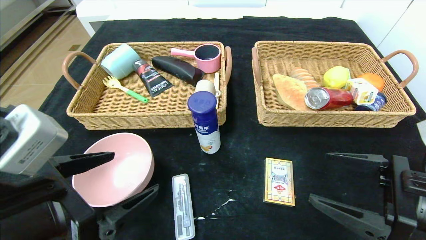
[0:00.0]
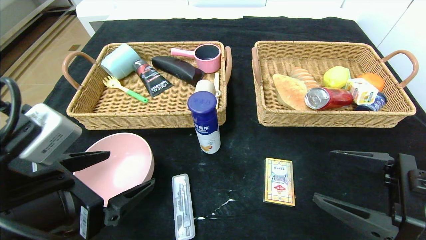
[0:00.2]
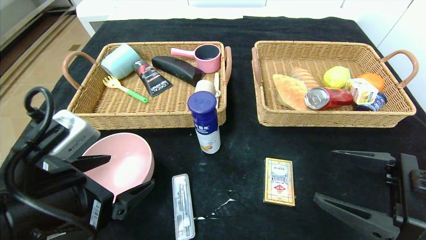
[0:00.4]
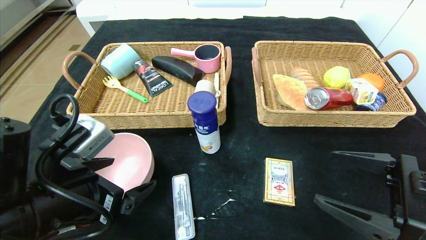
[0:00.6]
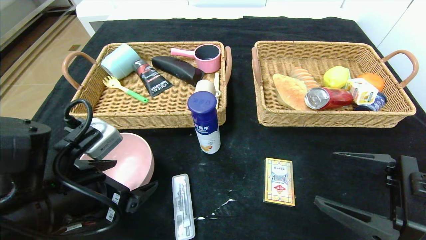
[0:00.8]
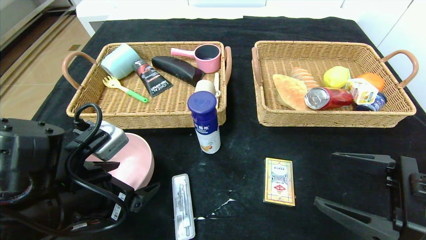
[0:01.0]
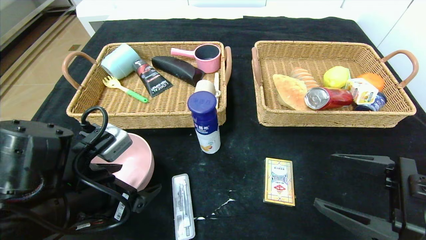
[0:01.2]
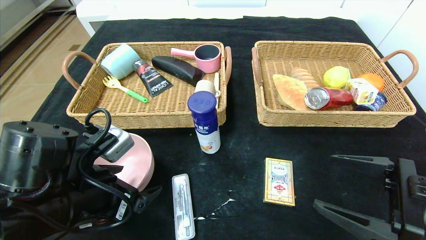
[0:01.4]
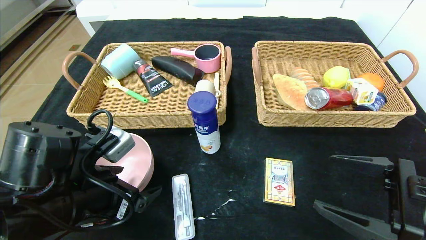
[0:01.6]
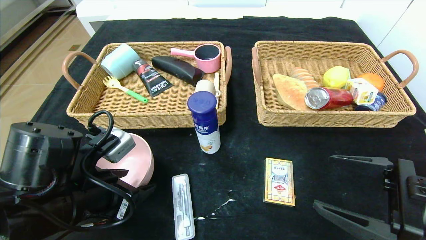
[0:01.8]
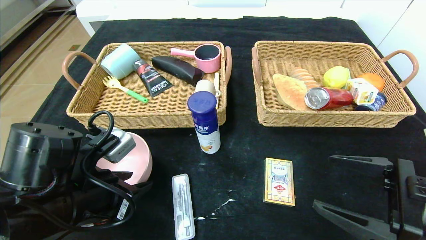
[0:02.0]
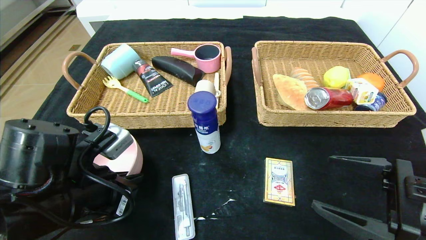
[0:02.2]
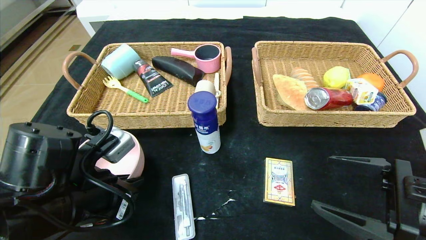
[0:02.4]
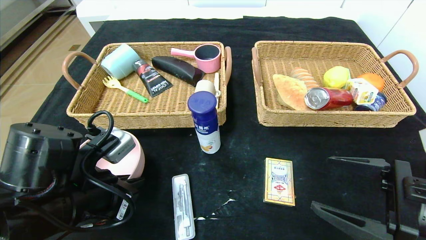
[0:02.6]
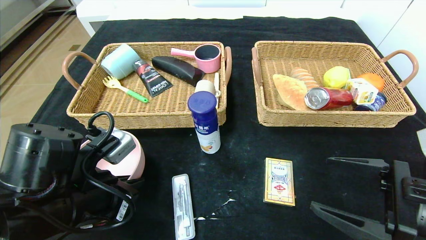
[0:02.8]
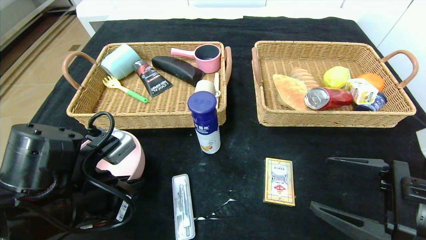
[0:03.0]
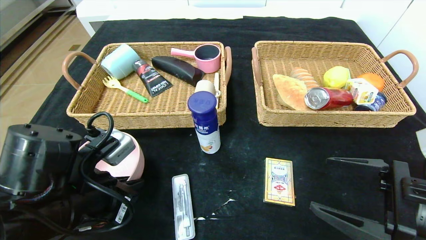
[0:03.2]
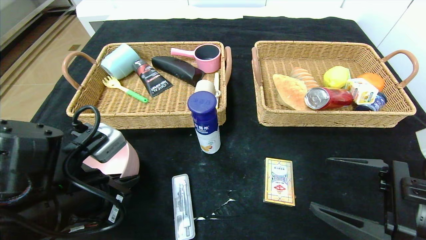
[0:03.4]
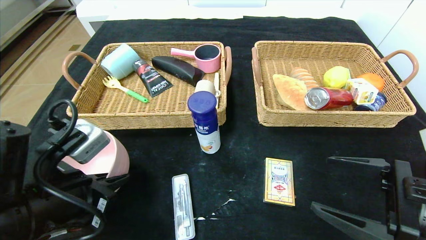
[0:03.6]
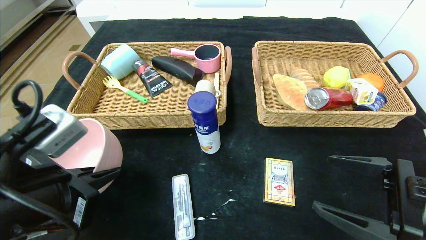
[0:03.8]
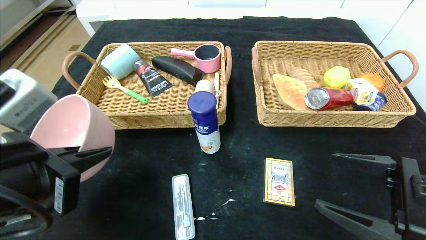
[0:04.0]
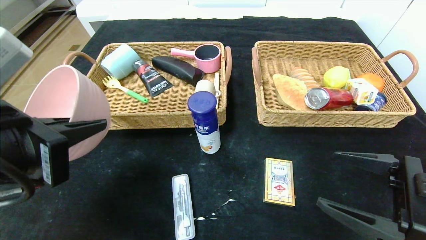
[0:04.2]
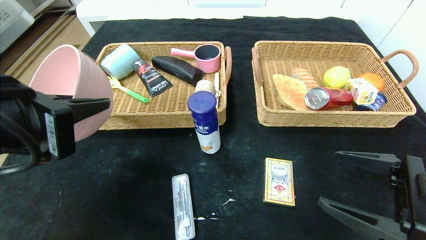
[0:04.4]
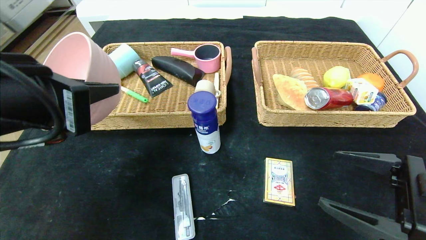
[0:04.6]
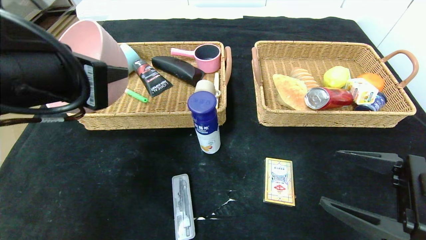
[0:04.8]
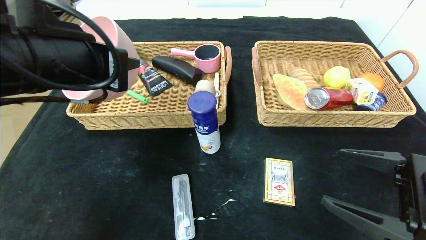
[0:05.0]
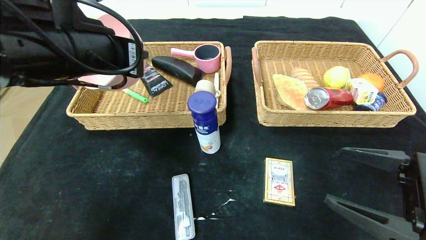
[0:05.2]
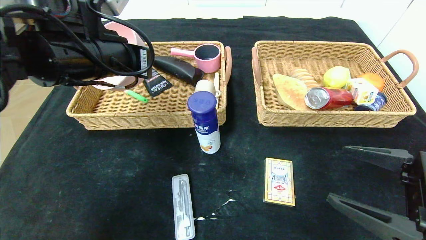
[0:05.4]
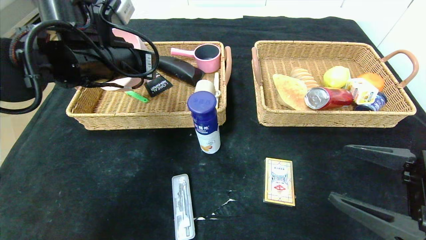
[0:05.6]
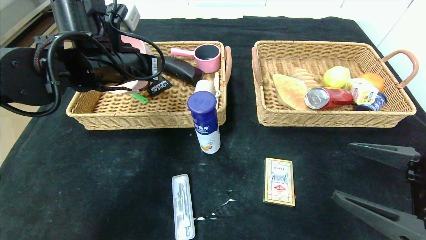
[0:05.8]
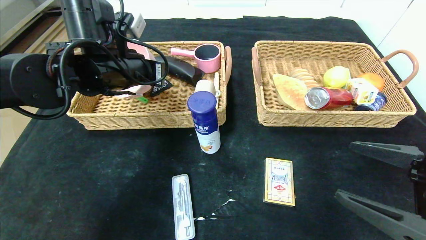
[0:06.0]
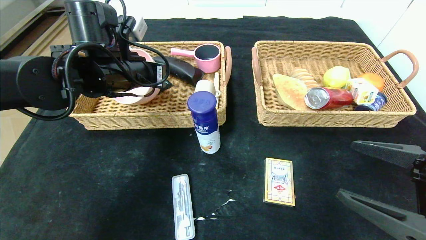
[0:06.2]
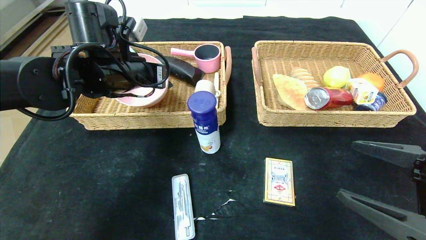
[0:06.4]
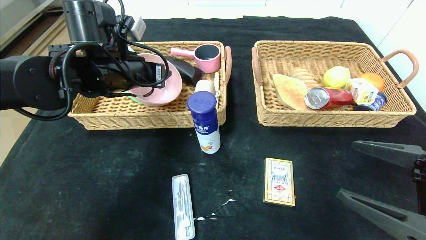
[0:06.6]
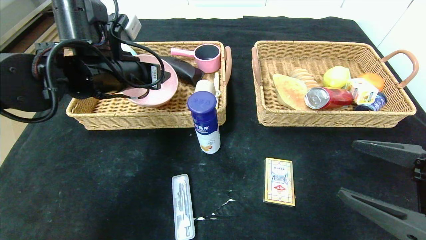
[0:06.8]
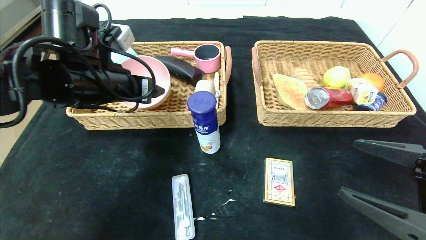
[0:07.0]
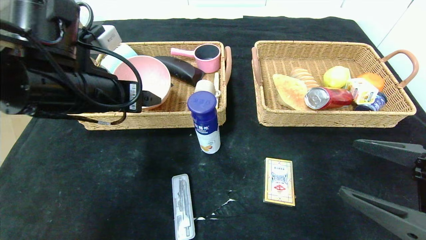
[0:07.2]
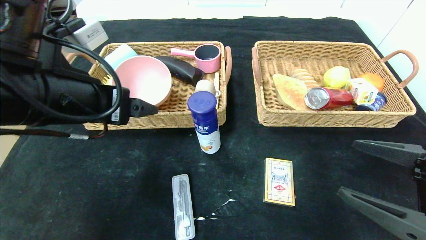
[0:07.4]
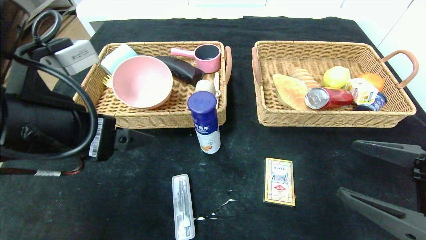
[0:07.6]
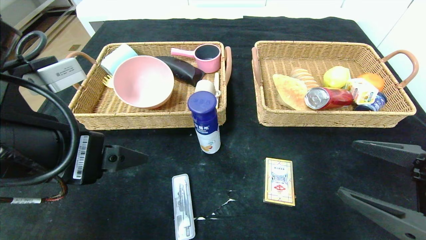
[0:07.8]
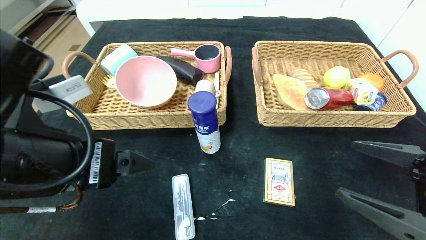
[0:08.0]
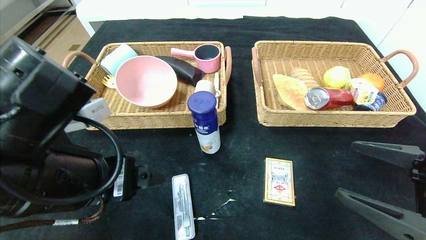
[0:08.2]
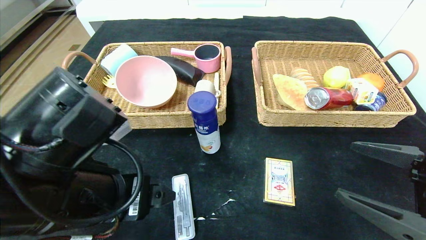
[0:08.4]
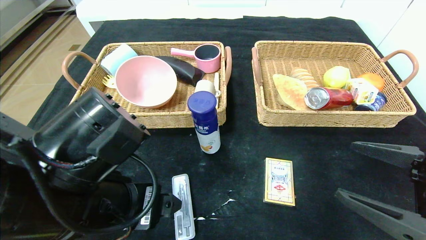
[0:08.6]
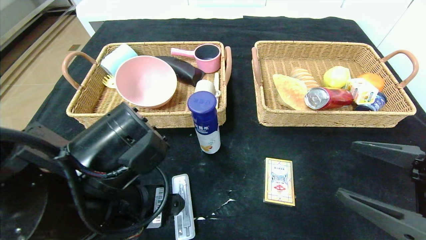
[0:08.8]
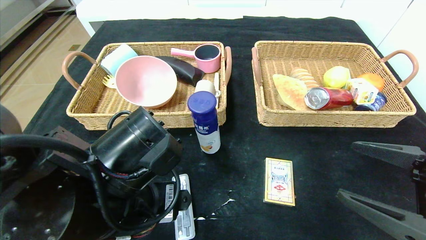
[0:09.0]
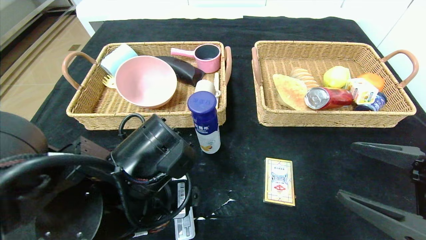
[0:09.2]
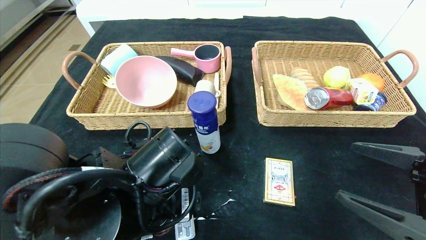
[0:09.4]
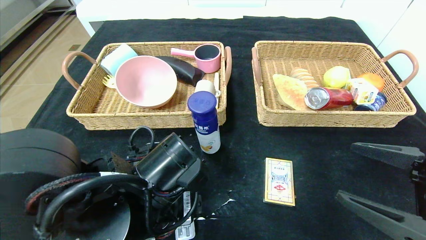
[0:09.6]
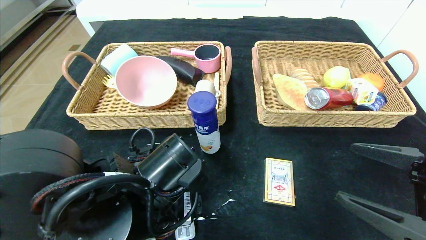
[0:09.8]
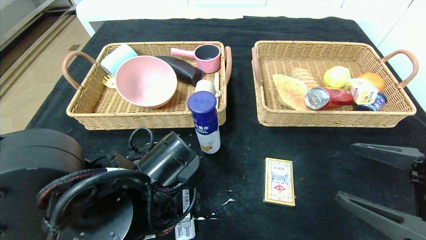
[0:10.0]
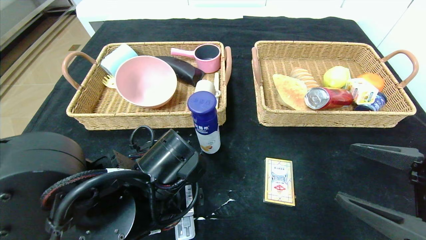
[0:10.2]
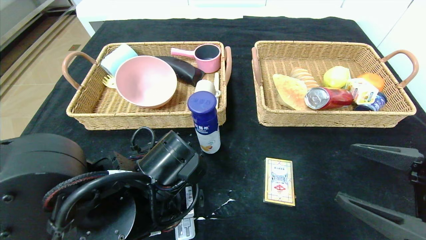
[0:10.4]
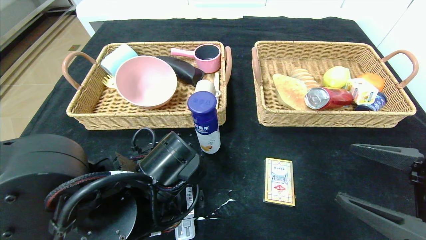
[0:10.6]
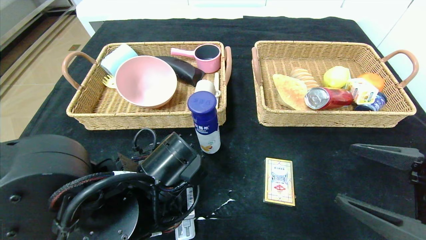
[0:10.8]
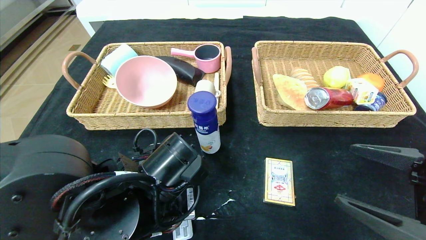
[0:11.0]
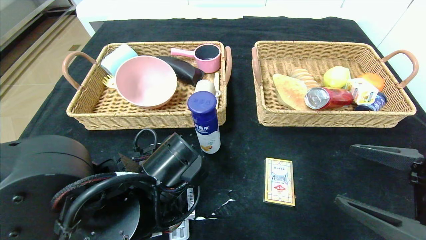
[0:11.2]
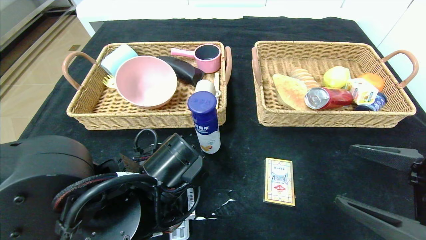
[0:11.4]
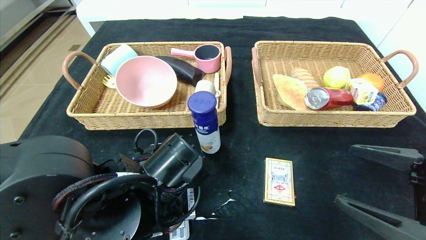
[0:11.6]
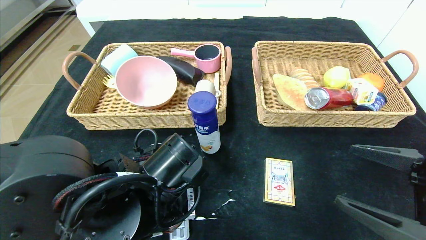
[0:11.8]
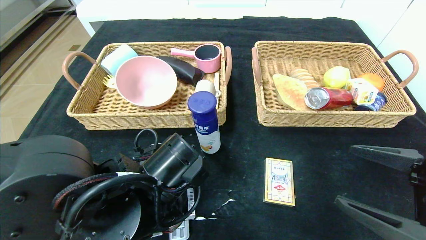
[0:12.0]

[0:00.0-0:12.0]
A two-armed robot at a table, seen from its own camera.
Step, 0:00.0 to 0:06.6: Grasp the pink bowl and put it in the left basket.
0:00.0 to 0:01.6: The left gripper goes roughly 5 cm forward.
0:01.6 to 0:03.0: The left gripper closes its fingers.
0:03.0 to 0:04.4: The left gripper travels upward by about 15 cm.
0:04.4 to 0:06.0: The left gripper is displaced forward by some 20 cm.
0:06.0 to 0:07.6: The left gripper moves backward, approximately 15 cm, and opens its fingers.
0:07.6 to 0:09.0: The left gripper is displaced downward and to the right by some 10 cm.
0:09.0 to 0:10.4: The left gripper ends up about 5 cm from where it was.
0:10.4 to 0:12.0: The left gripper closes up.

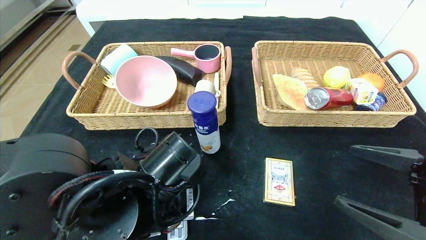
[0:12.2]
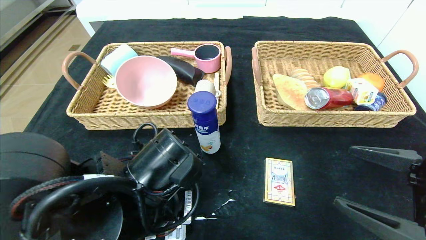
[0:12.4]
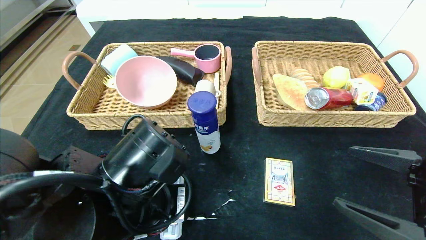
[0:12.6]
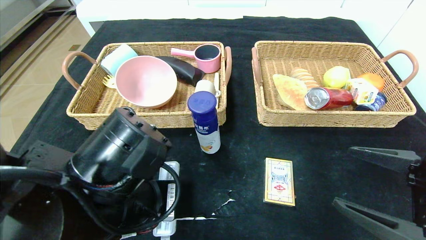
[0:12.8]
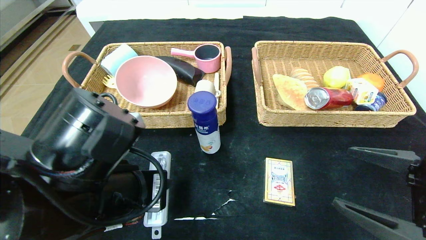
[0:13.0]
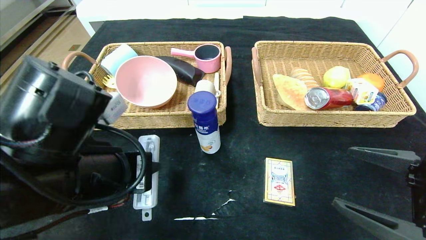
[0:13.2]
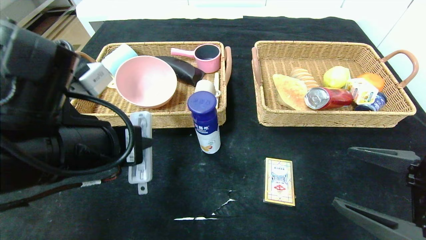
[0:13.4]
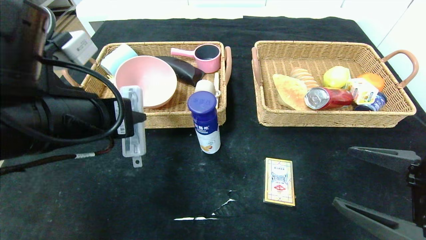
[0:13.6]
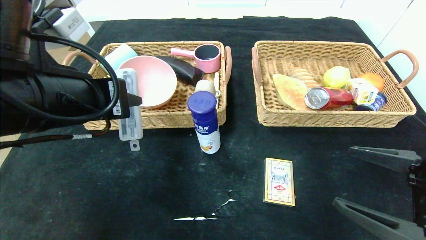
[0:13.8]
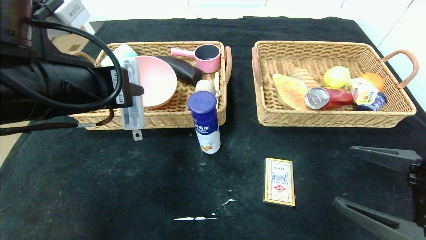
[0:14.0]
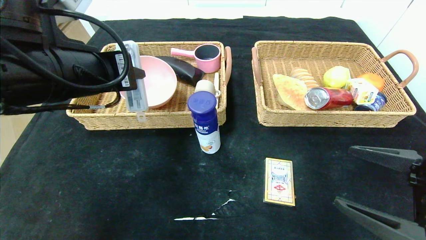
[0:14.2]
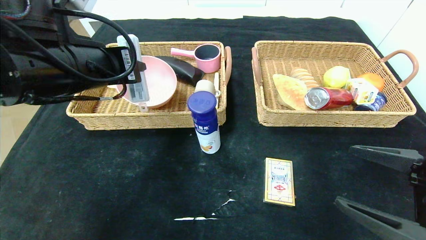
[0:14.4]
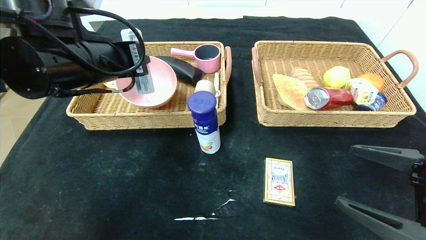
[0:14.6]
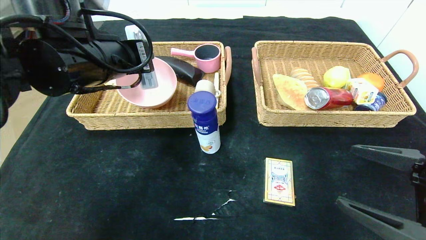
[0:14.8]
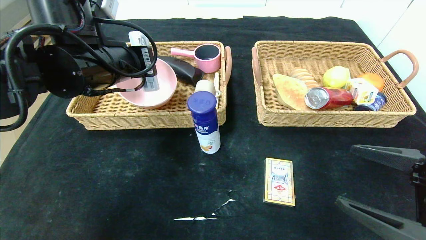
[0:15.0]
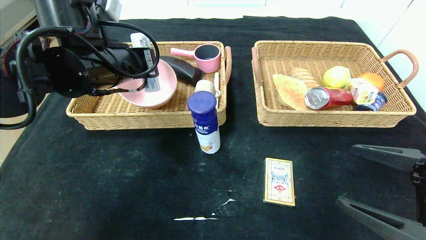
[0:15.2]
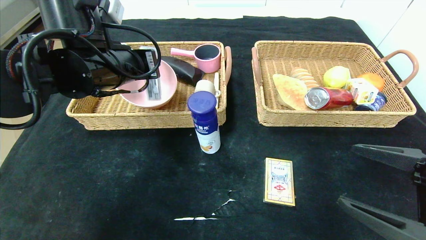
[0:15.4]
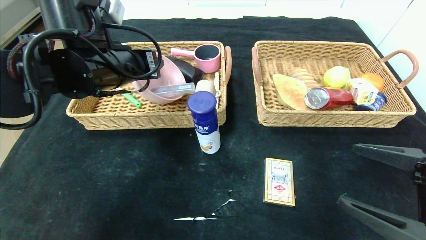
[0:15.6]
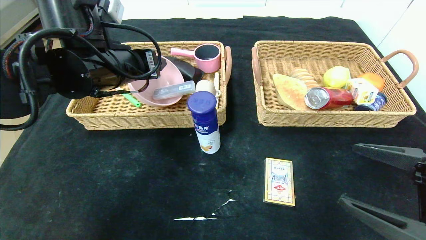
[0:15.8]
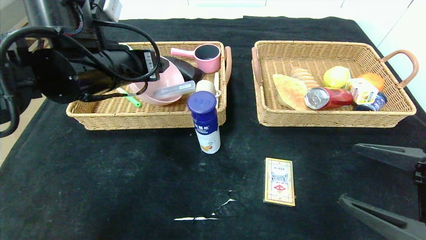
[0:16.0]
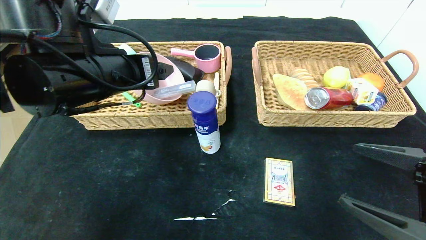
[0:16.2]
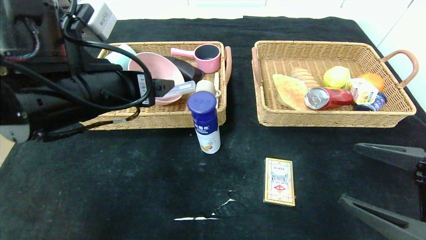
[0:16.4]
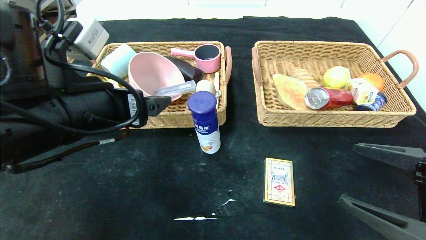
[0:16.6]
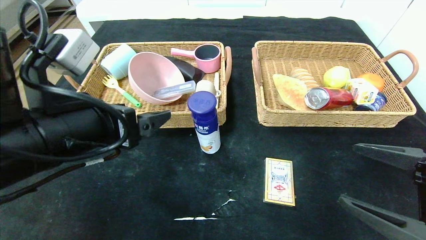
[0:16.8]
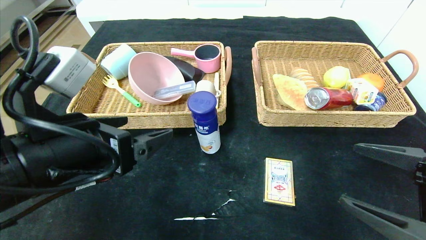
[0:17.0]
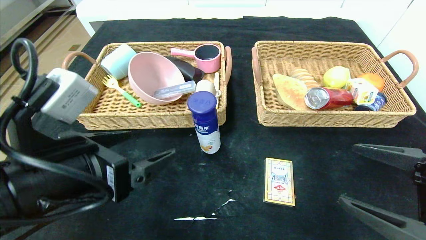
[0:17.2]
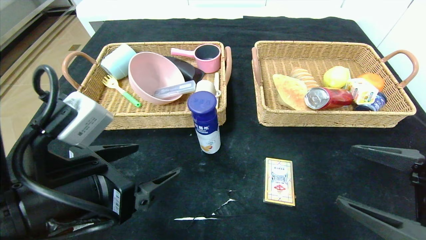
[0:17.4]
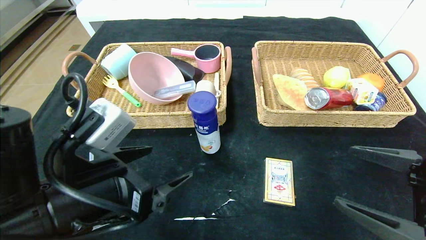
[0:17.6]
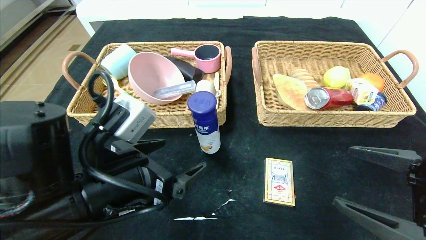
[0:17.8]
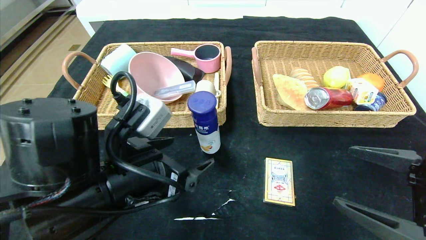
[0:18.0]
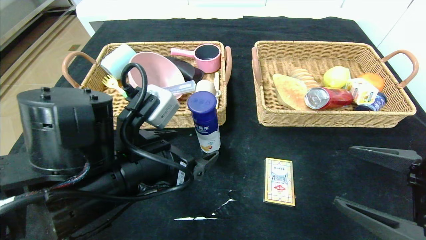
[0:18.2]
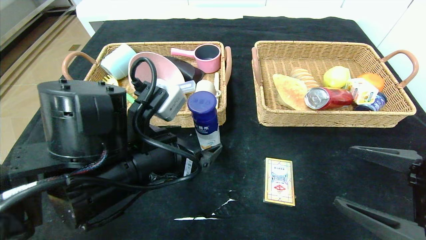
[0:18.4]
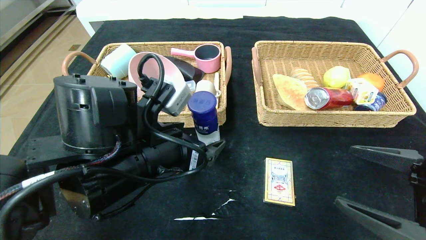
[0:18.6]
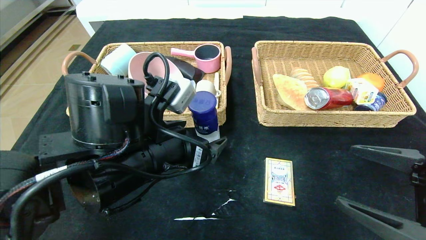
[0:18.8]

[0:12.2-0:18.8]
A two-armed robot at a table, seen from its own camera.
Step, 0:12.2 to 0:15.8: Grasp the compass and put it in the left basket.
0:12.2 to 0:13.8: The left gripper travels upward and to the left by some 15 cm.
0:13.8 to 0:15.4: The left gripper travels forward by approximately 10 cm.
0:15.4 to 0:17.2: The left gripper shifts roughly 20 cm backward and downward, and opens its fingers.
0:17.2 to 0:18.8: The left gripper goes roughly 10 cm to the right and forward.
